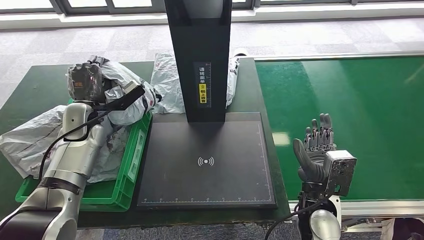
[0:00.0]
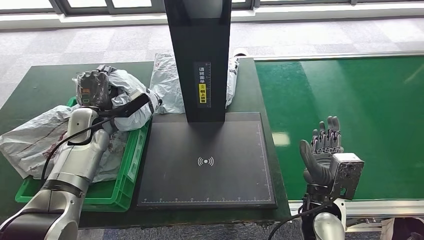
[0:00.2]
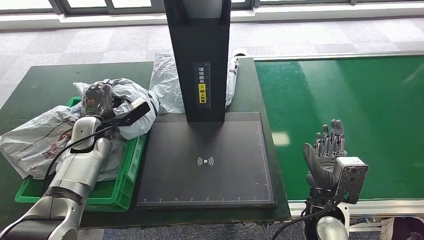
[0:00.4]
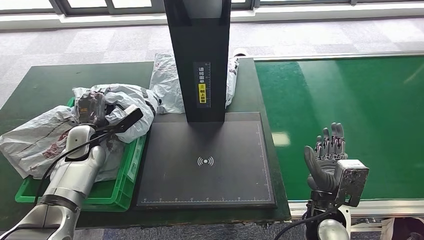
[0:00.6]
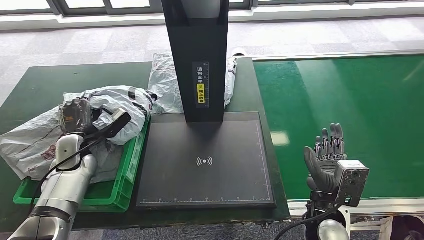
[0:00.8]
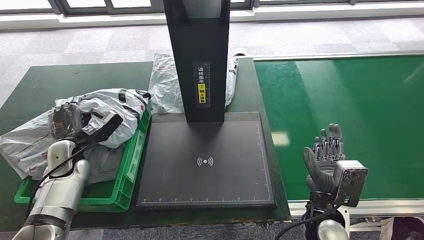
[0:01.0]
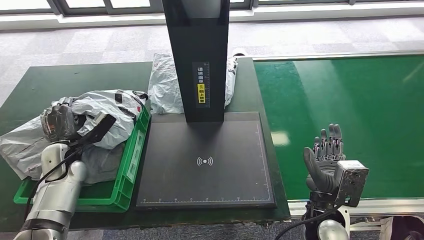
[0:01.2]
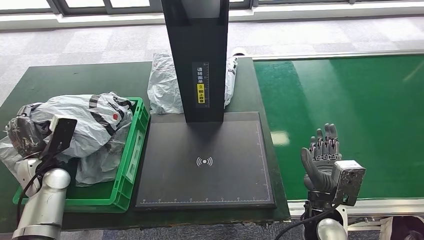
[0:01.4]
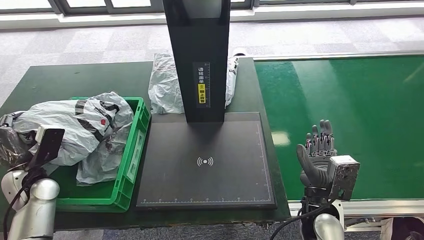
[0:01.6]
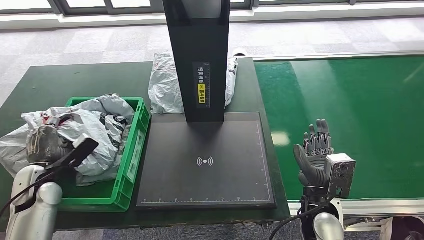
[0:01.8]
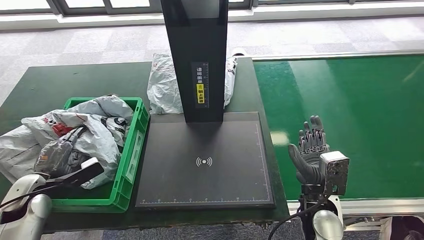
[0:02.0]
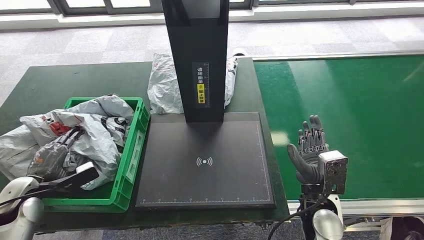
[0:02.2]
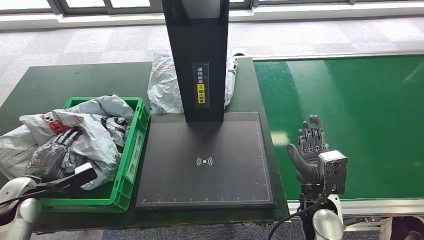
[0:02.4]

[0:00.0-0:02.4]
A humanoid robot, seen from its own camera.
Step, 0:00.0 to 0:02.4: Place the parcel into the delivery box.
0:01.2 to 0:02.4: The left hand shifts some 15 cm backward and to the left.

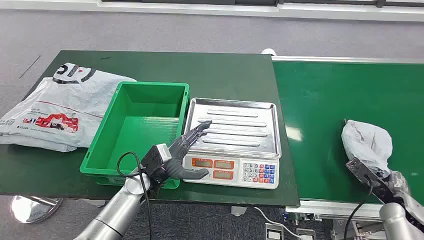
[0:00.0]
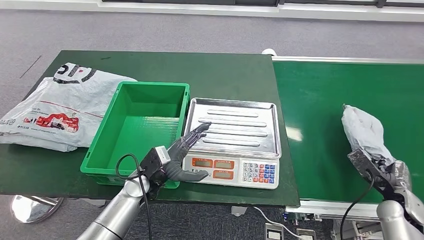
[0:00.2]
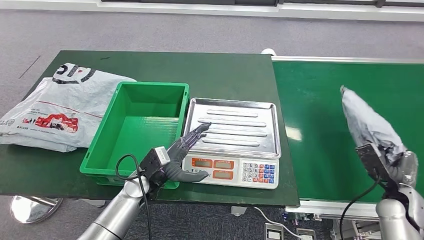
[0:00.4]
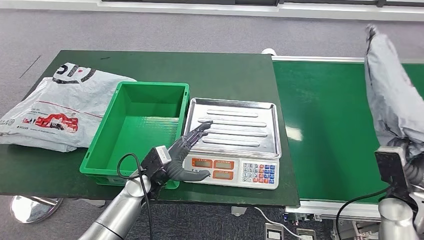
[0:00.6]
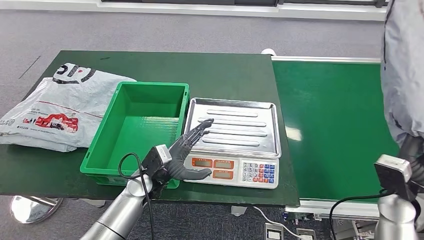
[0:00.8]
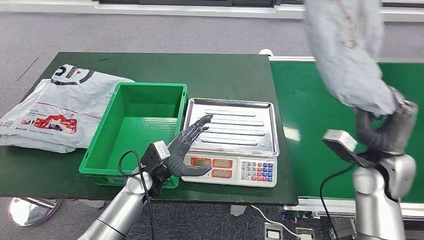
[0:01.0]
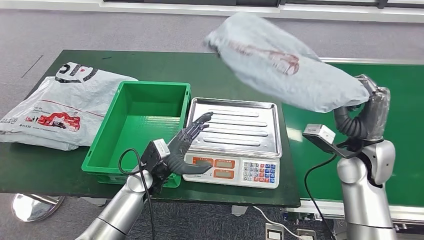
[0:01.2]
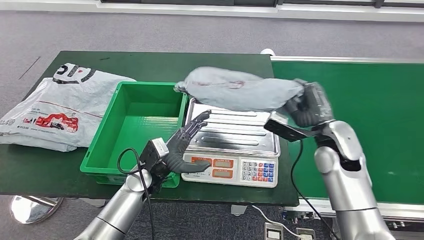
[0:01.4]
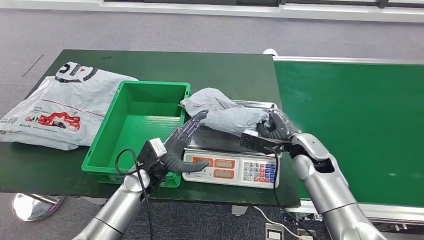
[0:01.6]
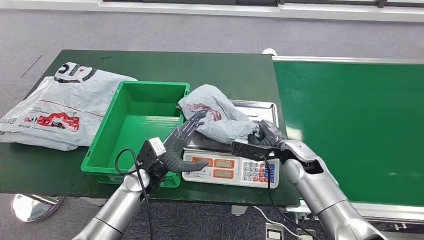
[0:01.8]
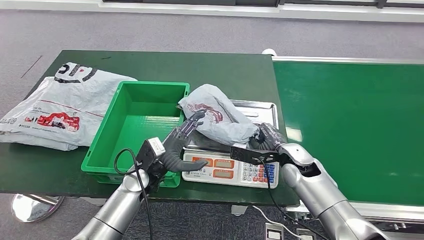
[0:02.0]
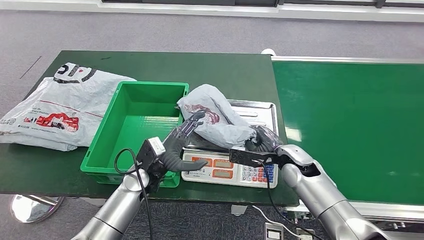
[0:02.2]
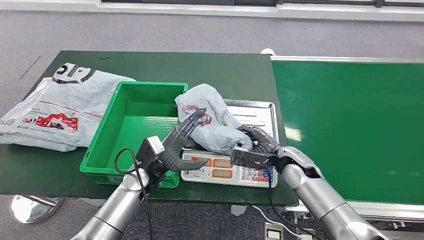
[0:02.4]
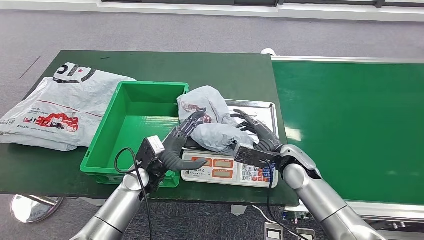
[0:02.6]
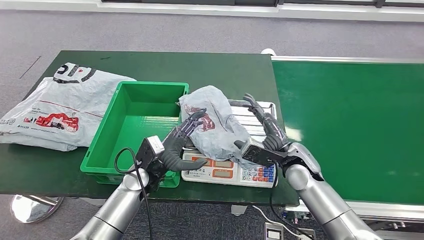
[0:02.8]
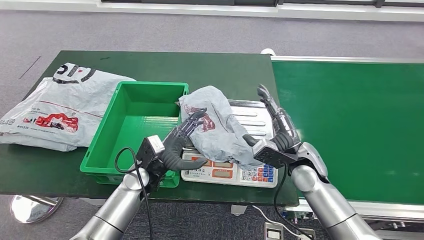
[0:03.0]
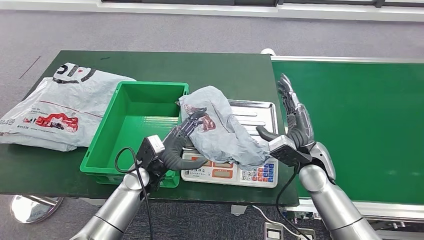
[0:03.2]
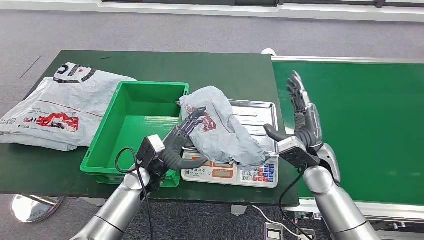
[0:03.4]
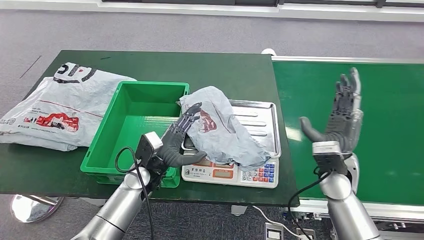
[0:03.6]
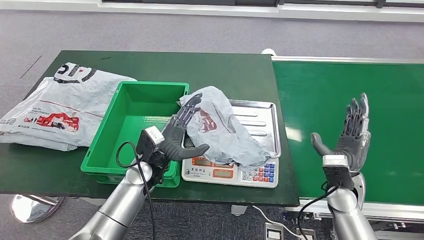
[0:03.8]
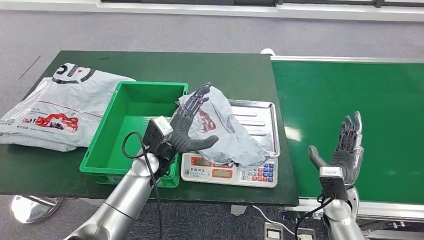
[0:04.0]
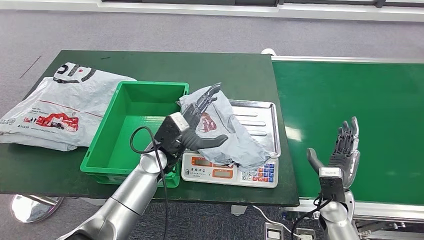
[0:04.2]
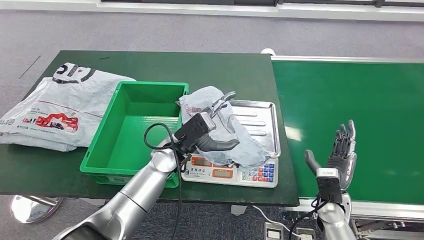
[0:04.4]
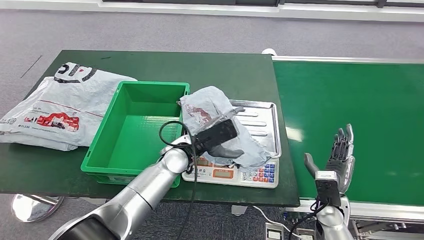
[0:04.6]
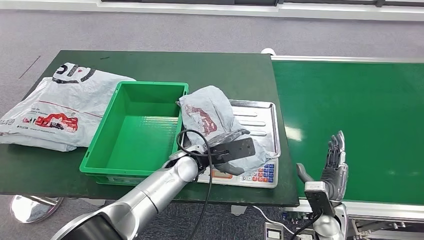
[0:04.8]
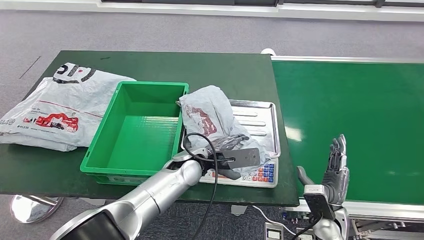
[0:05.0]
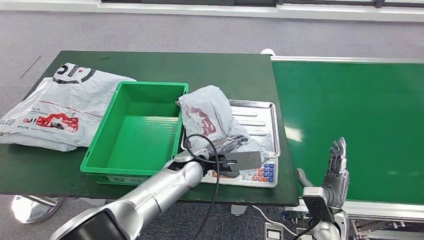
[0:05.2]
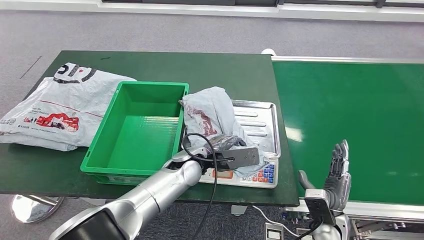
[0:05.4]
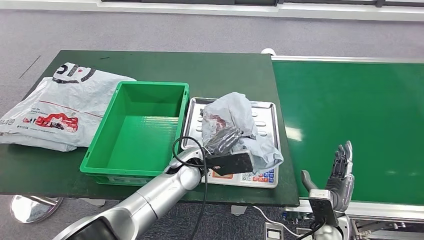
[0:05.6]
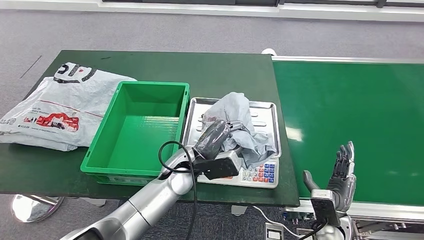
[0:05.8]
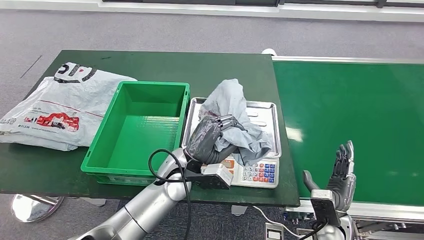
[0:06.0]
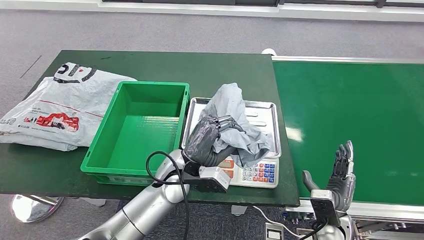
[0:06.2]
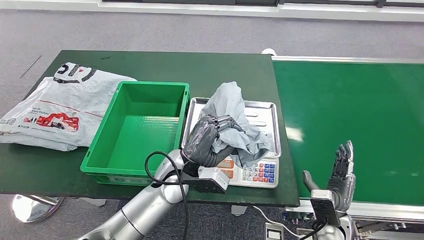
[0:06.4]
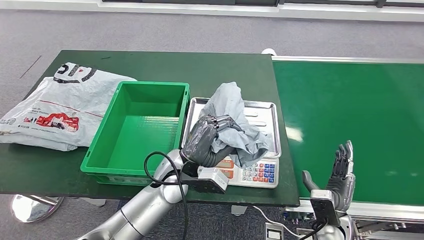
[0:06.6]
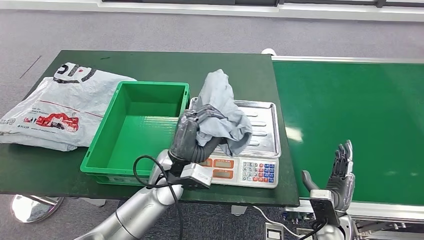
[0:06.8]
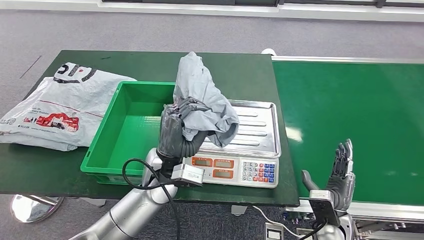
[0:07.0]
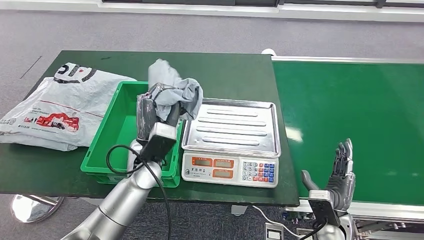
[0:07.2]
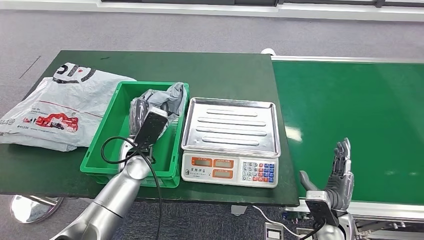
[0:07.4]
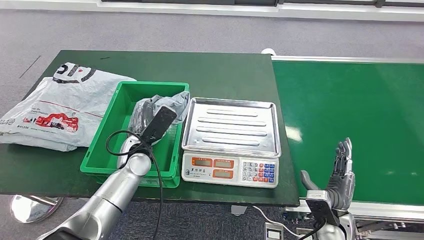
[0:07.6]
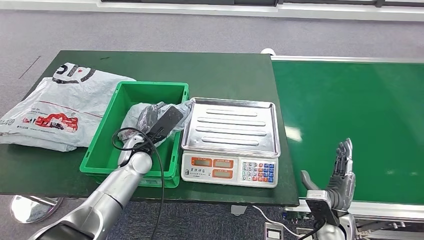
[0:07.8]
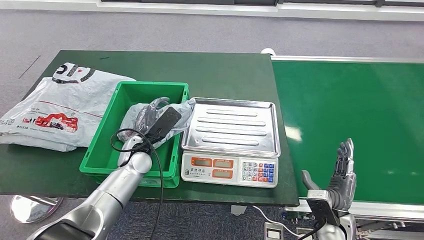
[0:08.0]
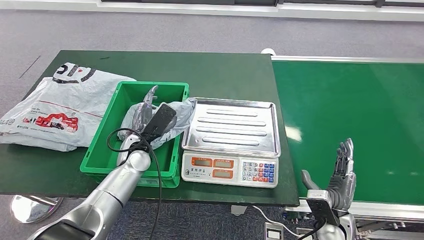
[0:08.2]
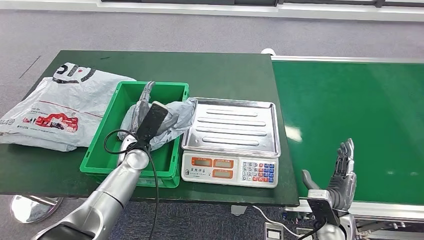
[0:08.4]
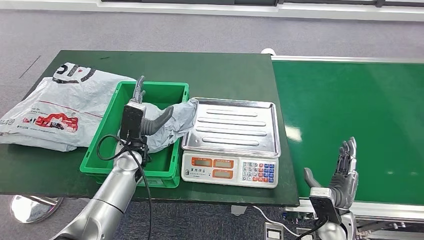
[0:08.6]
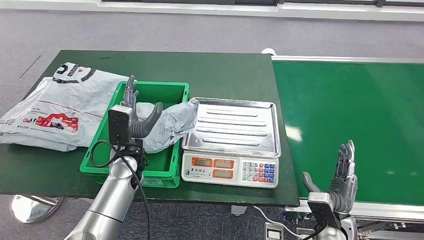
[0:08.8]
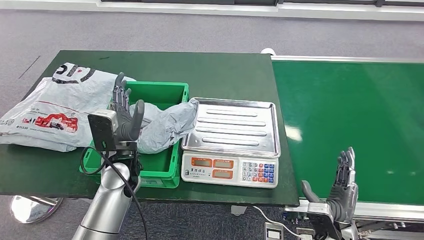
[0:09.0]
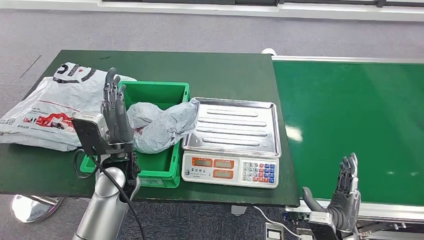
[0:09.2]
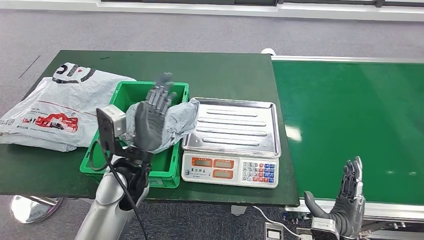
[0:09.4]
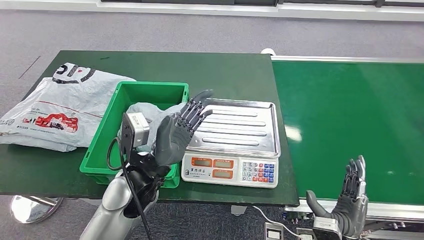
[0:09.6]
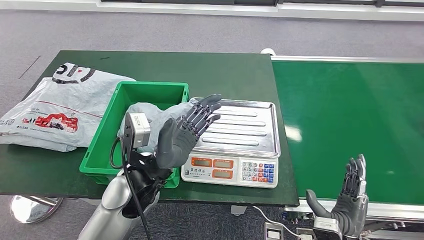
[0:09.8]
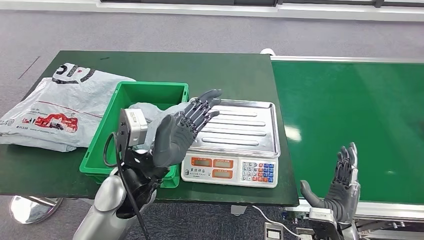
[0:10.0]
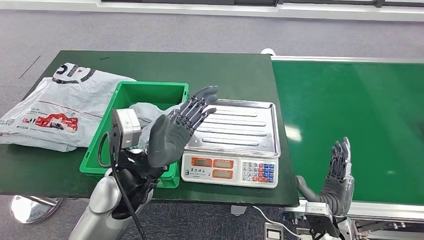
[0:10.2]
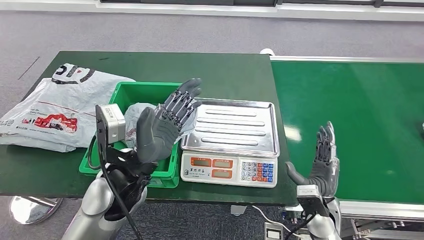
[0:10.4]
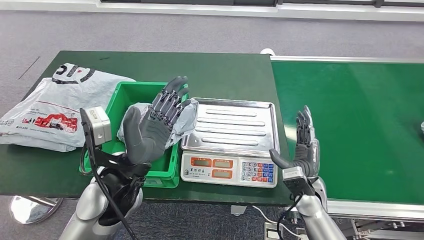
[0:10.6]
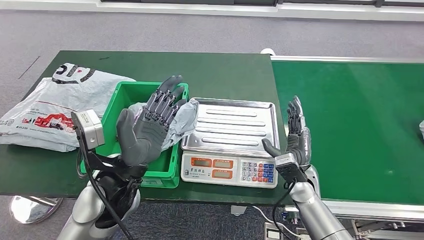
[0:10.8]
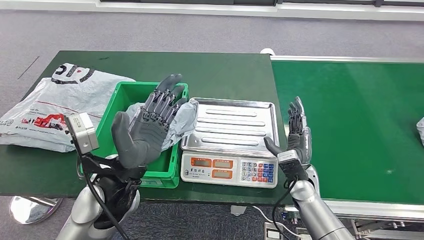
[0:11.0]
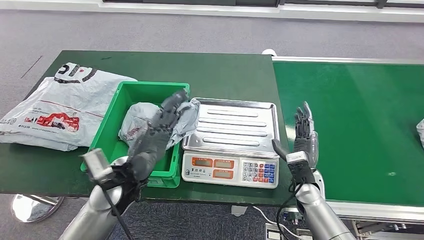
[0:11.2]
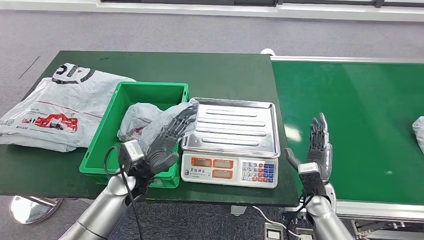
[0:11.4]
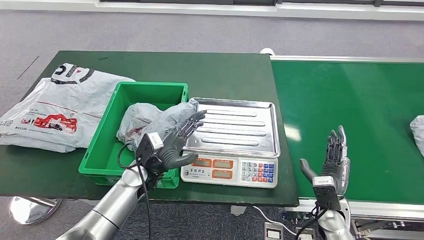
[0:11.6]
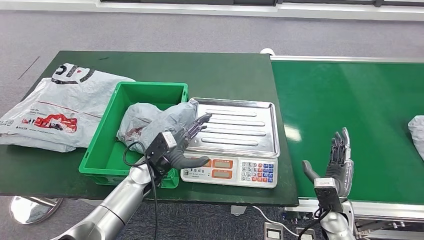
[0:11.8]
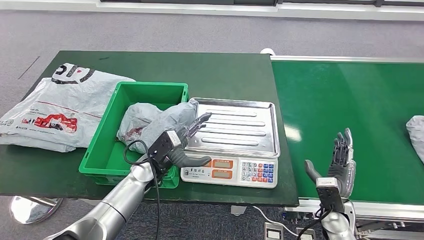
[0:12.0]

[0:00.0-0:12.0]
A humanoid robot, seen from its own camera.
Step, 0:00.0 to 0:01.0: Take the parcel off the conveyor belt.
Step, 0:01.2 to 0:03.2: Place the parcel onto the inbound machine.
Step, 0:03.4 to 0:06.8: Pick up the parcel from the inbound machine.
Step, 0:07.0 to 0:09.0: Put the parcel inside the courier box.
0:03.0 to 0:04.4: The left hand is displaced to the right and upward by roughly 10 cm; the right hand shifts approximately 15 cm downward, to the right and backward.
0:04.4 to 0:06.0: The right hand shifts roughly 5 cm backward.
0:06.0 to 0:07.6: The left hand travels to the left by roughly 10 cm.
0:09.0 to 0:10.4: The right hand shifts roughly 5 cm forward; the left hand goes about 10 cm upward and backward.
0:10.4 to 0:12.0: The left hand moves downward and forward, about 20 cm.

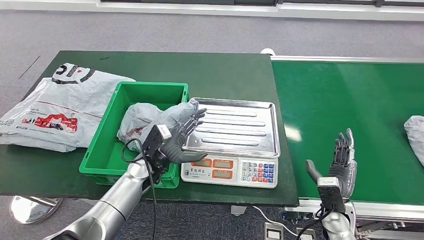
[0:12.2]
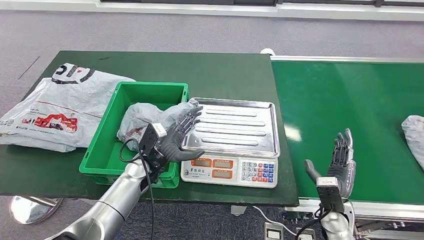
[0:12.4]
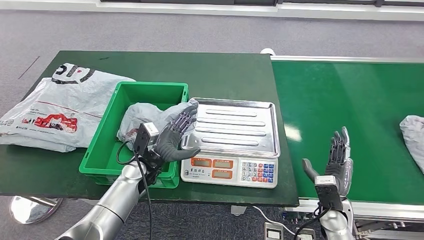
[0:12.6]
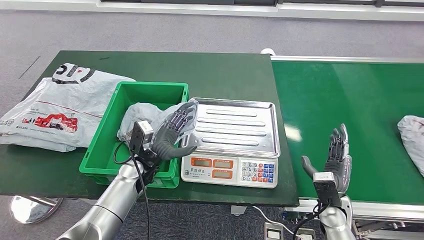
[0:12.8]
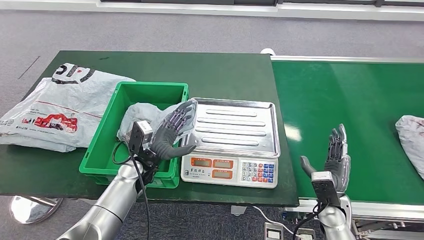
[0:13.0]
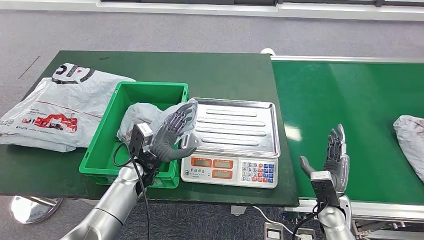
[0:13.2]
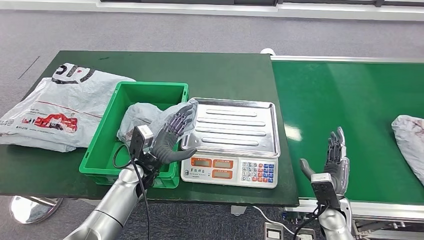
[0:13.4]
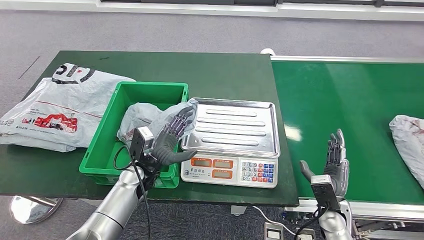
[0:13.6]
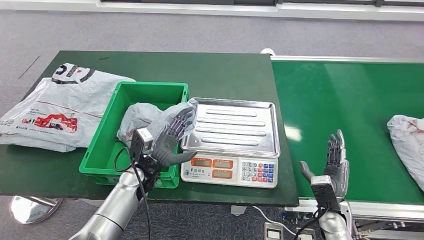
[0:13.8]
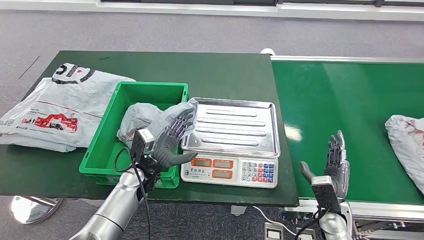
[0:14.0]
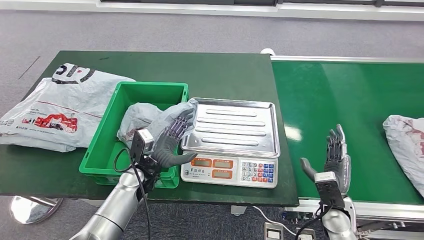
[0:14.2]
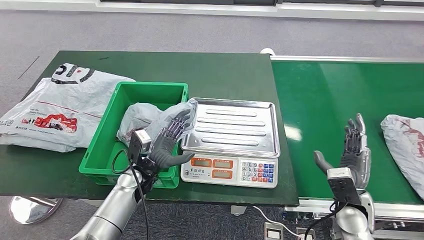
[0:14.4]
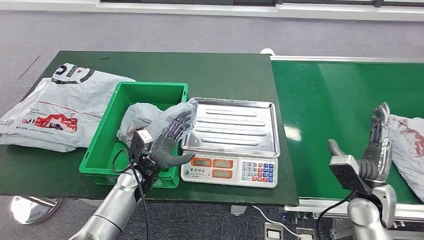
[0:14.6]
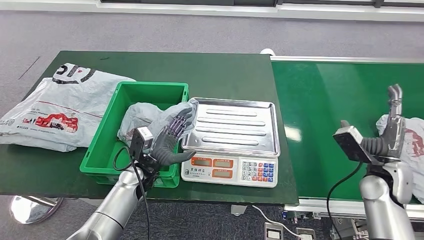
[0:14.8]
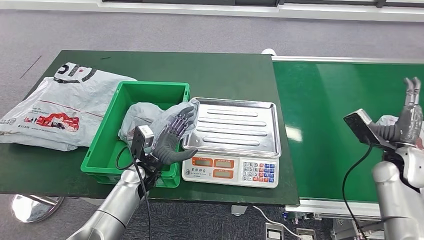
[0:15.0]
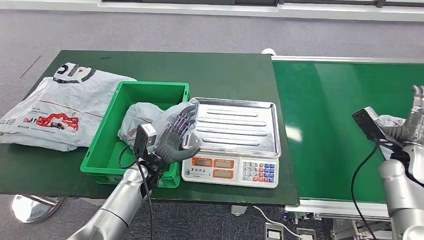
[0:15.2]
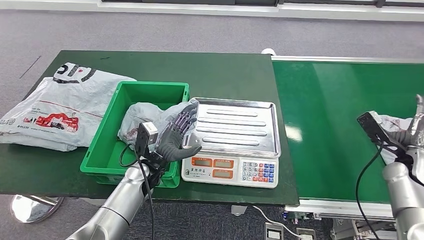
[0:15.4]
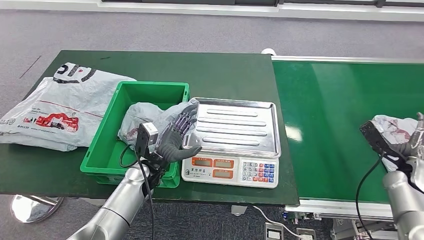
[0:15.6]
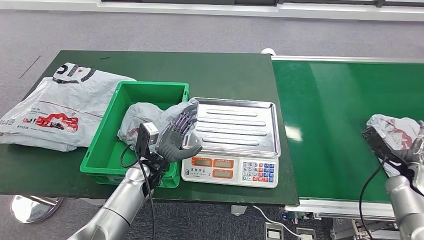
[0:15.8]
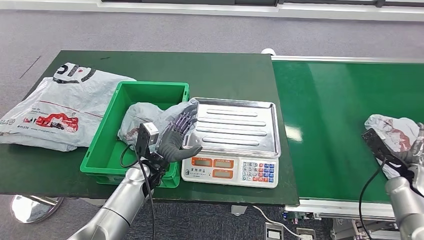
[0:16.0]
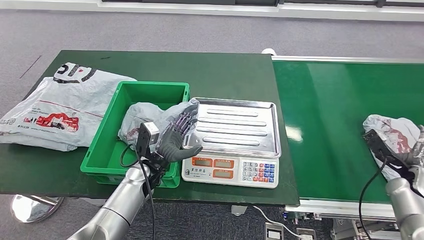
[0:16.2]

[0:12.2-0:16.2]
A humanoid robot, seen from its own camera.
0:12.2 to 0:13.6: There are only small adjustments of the hands.
0:13.6 to 0:14.8: The right hand goes roughly 15 cm upward, to the right and forward.
0:14.8 to 0:16.2: The right hand heads to the right and downward, covering some 15 cm.
